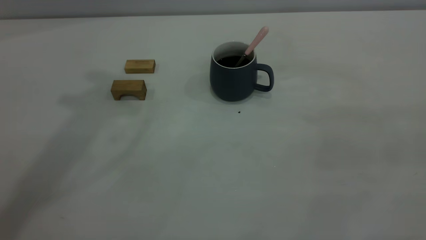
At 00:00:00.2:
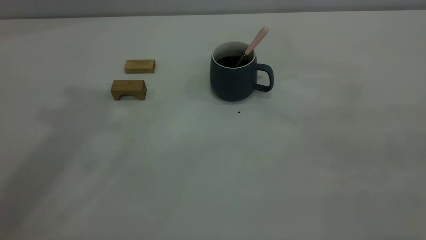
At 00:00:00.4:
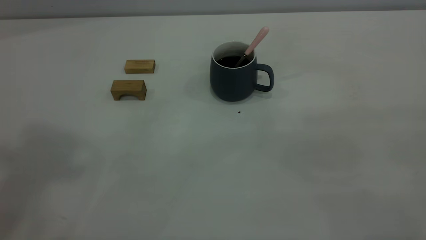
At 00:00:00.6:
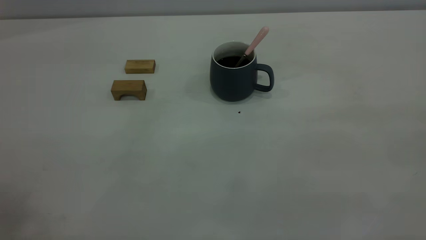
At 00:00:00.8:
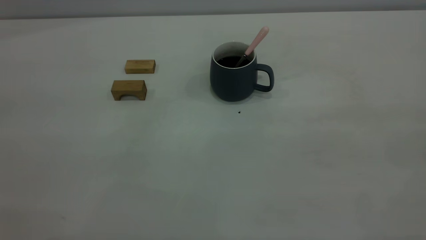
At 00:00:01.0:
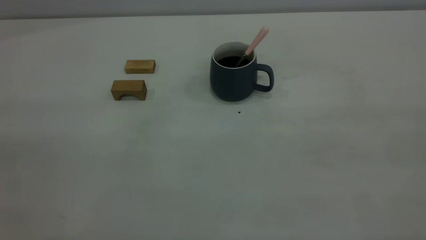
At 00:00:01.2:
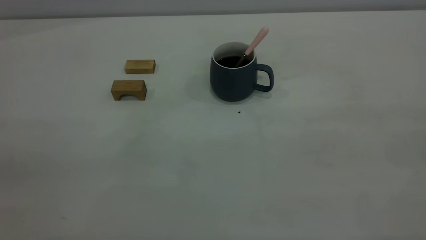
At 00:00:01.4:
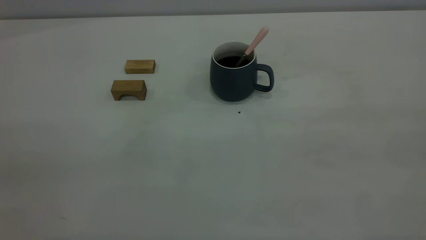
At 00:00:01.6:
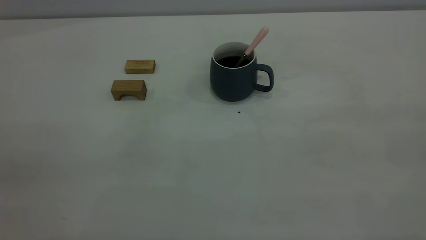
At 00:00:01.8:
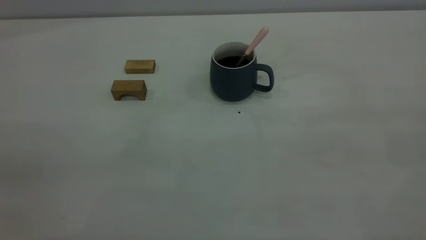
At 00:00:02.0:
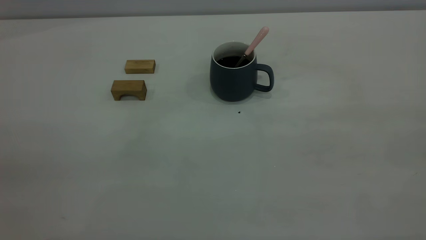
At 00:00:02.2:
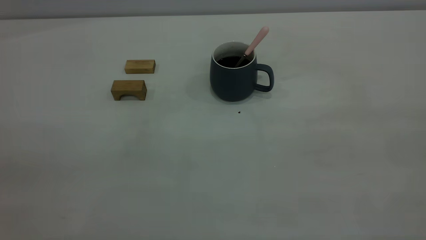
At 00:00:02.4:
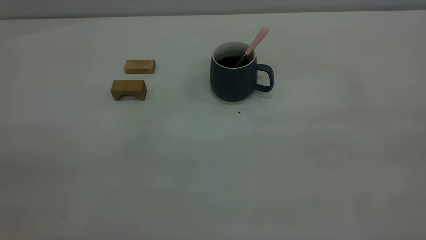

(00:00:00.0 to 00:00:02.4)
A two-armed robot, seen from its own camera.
00:00:01.2 - 00:00:02.4: Both grippers stay put.
